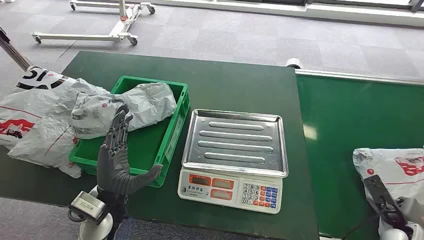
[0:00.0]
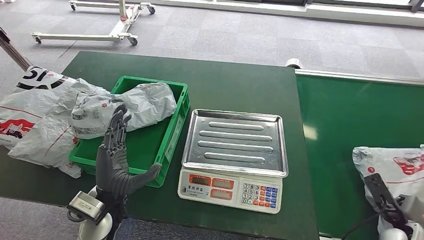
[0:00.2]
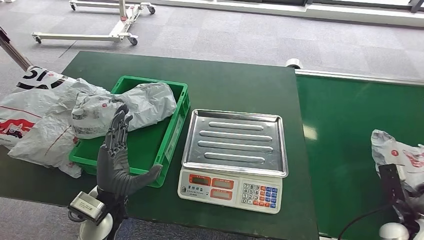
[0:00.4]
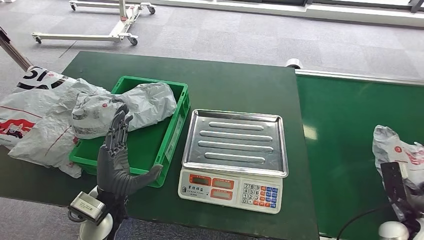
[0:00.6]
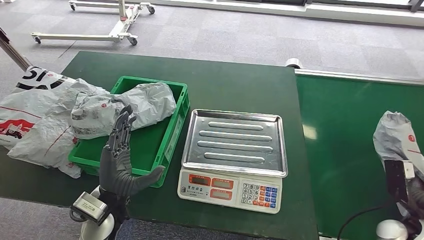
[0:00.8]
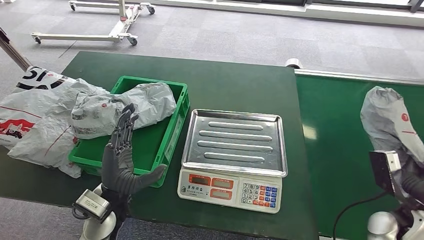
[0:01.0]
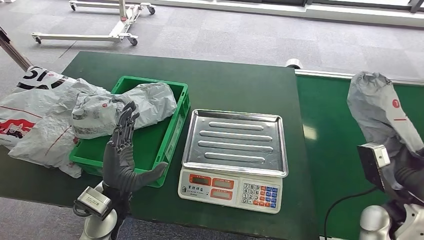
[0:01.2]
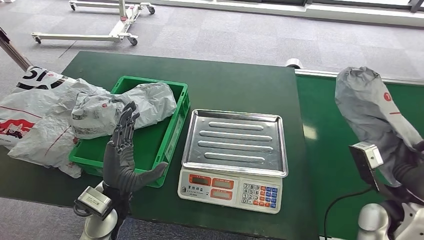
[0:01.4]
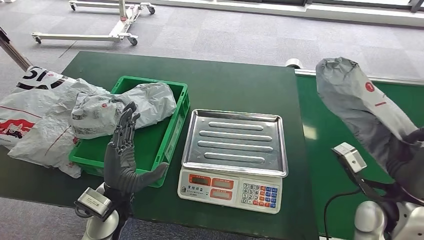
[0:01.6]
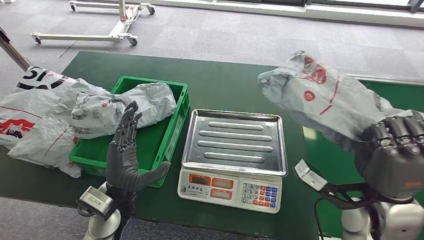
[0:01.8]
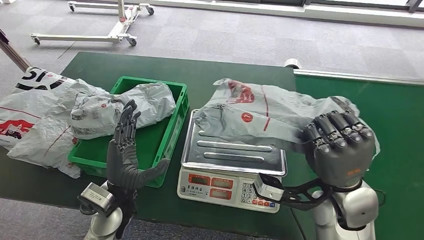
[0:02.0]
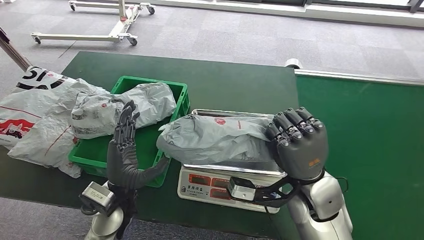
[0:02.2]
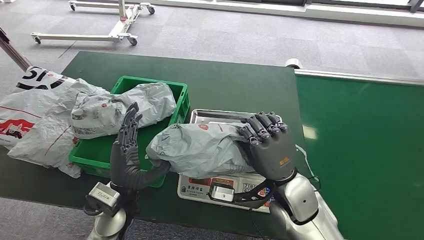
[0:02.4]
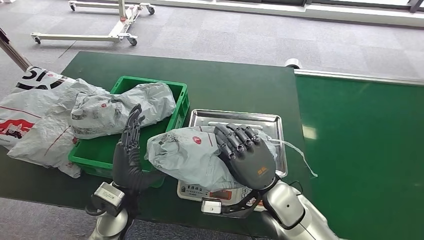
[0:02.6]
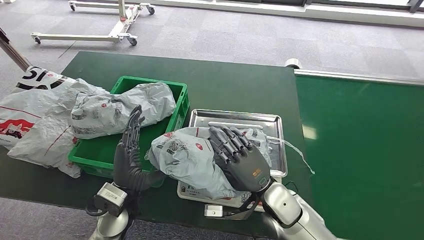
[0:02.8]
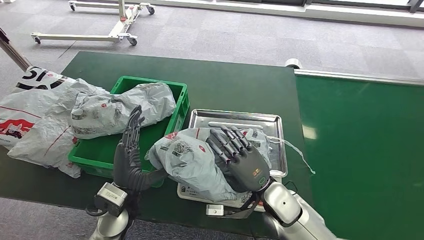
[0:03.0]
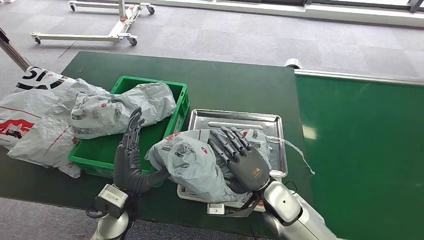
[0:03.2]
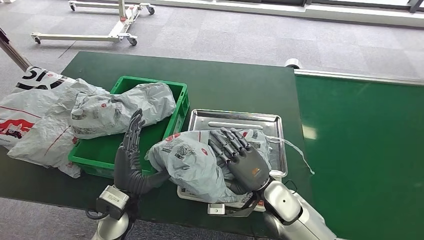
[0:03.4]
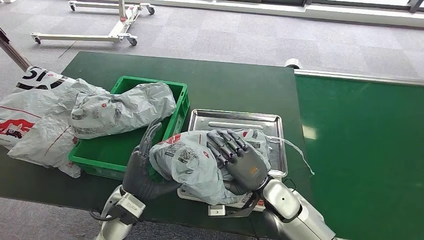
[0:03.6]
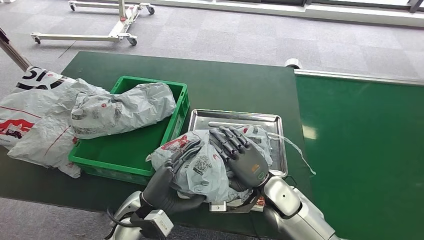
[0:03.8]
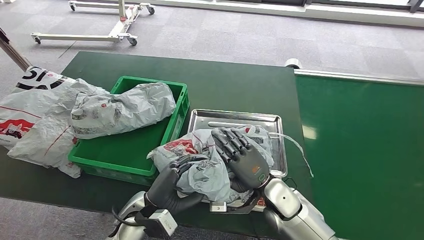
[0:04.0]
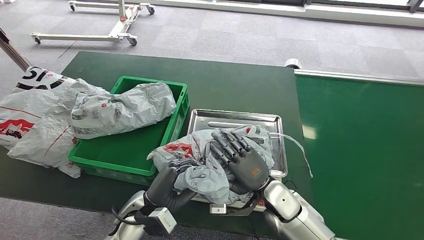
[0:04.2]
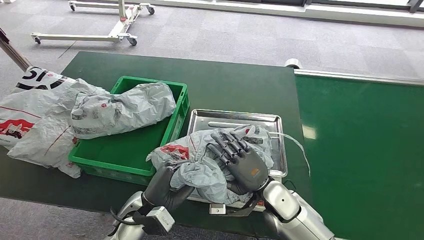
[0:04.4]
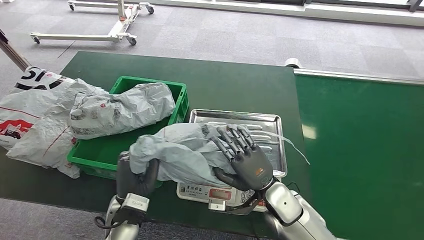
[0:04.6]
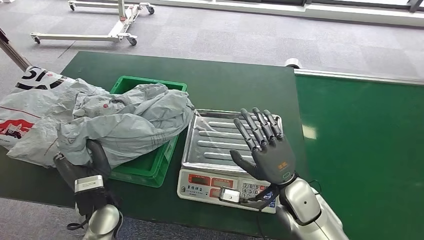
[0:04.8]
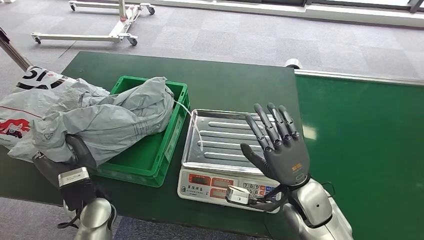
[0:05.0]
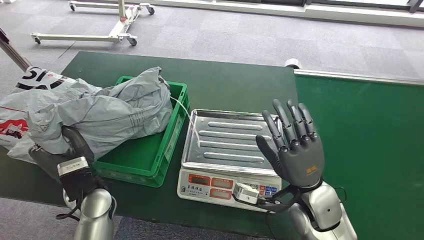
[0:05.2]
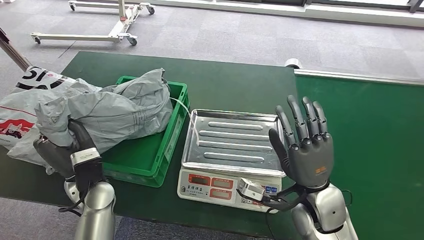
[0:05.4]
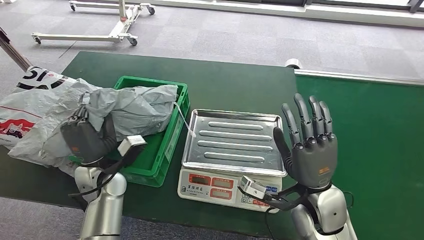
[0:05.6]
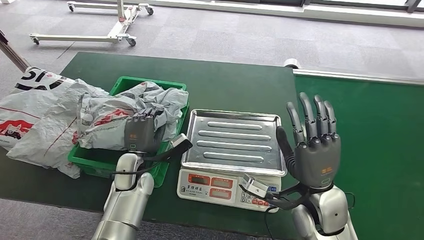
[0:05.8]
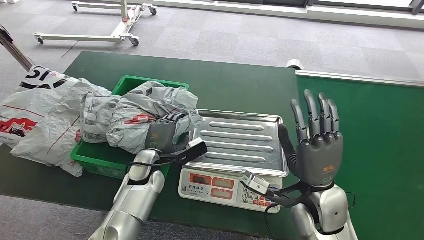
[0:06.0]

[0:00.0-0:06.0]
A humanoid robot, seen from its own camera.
Step, 0:00.0 to 0:00.8: Pick up the package from the conveyor belt.
Step, 0:01.2 to 0:03.2: Place the package onto the inbound machine.
Step, 0:03.6 to 0:04.6: Pick up the package from the inbound machine.
Step, 0:04.8 to 0:06.0: Place the package into the parcel locker.
0:03.0 to 0:04.4: The left hand moves about 5 cm.
